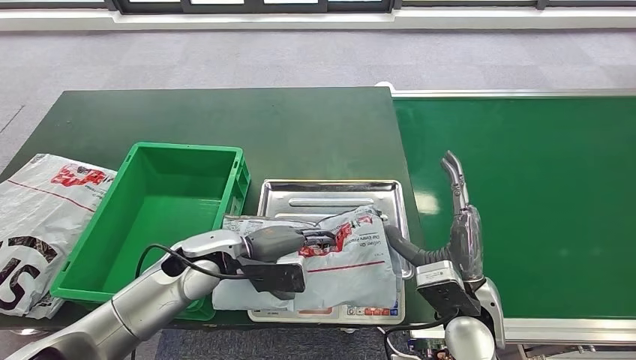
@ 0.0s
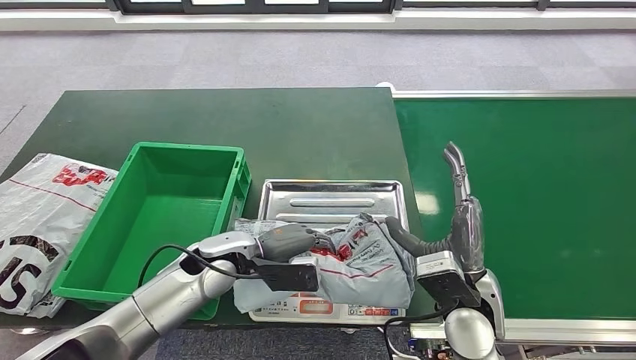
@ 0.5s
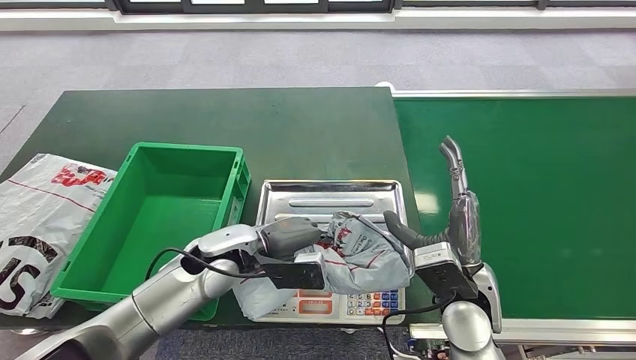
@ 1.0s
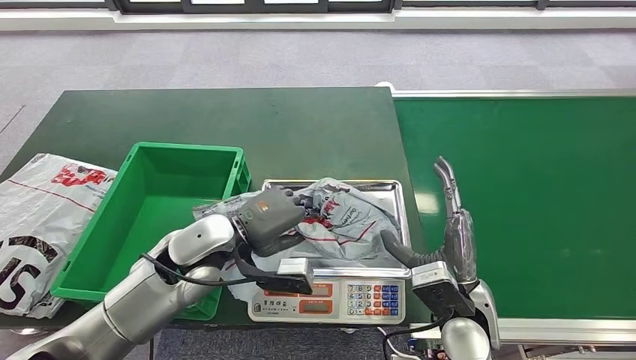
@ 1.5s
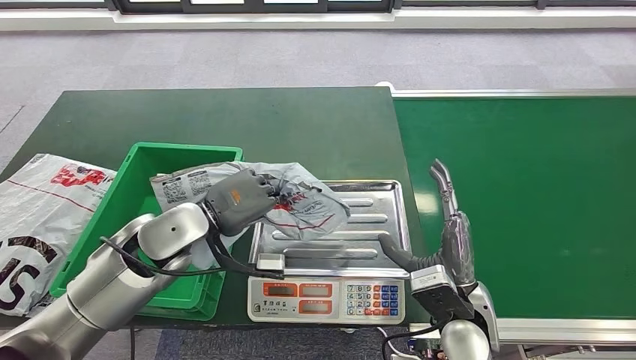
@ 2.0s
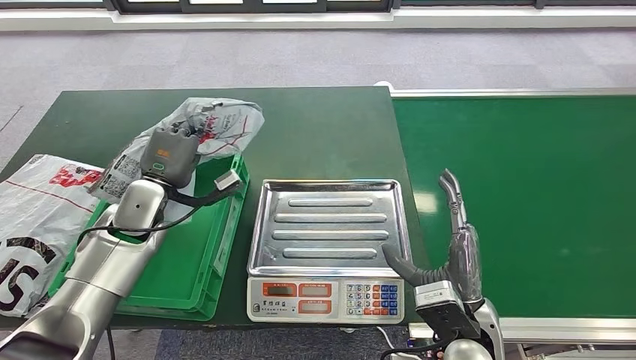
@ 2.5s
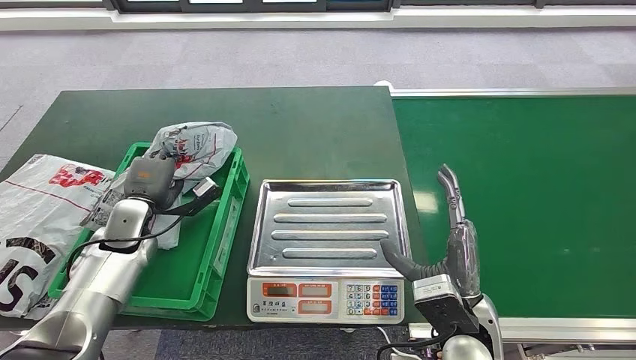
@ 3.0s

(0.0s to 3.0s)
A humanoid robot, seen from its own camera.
Step, 2.0s - 3.0s: Place the package into the parcel locker.
